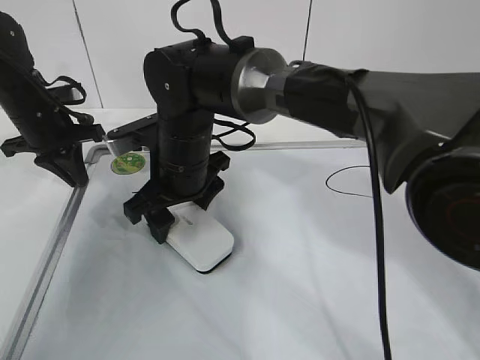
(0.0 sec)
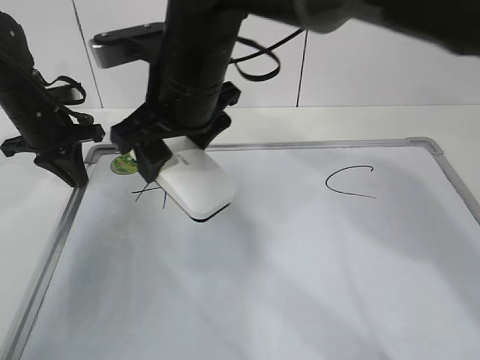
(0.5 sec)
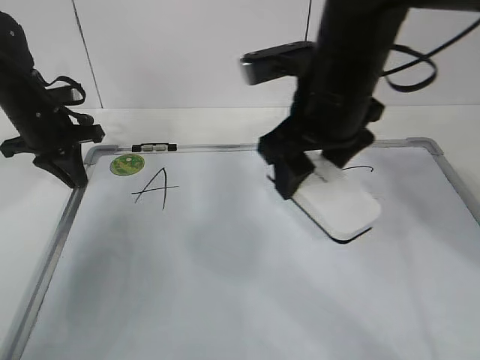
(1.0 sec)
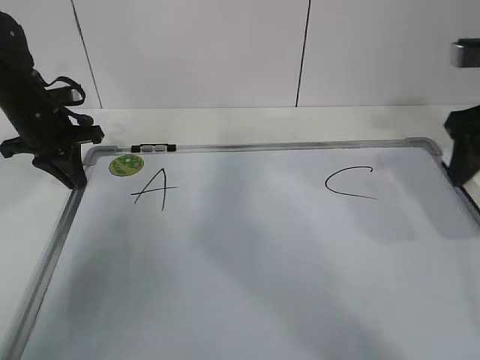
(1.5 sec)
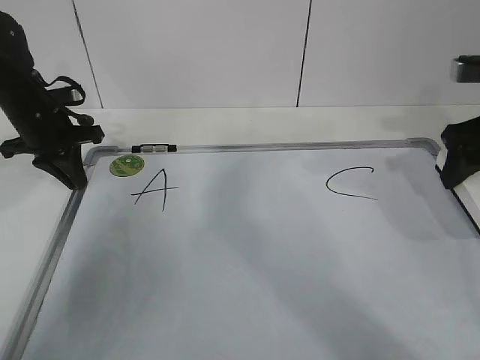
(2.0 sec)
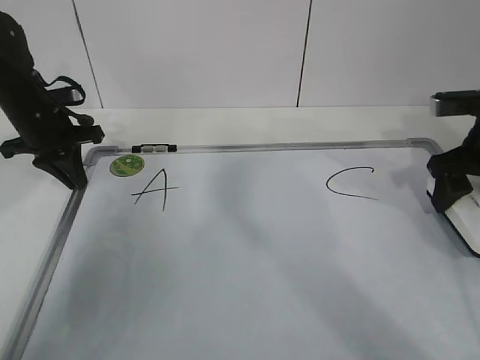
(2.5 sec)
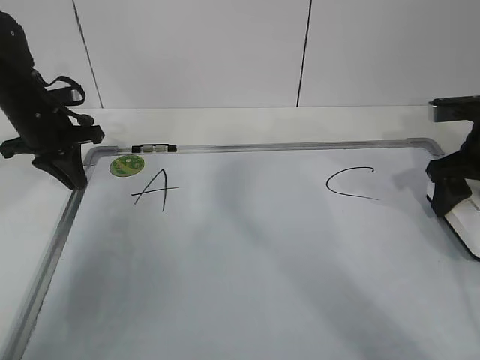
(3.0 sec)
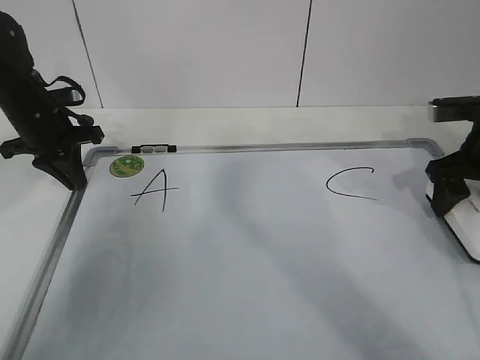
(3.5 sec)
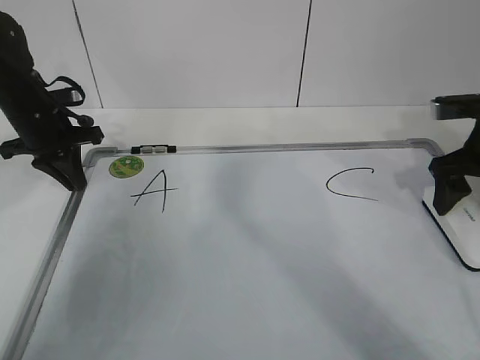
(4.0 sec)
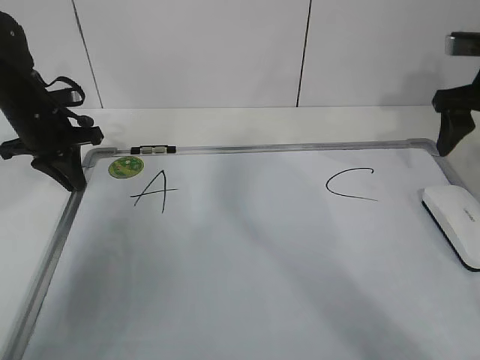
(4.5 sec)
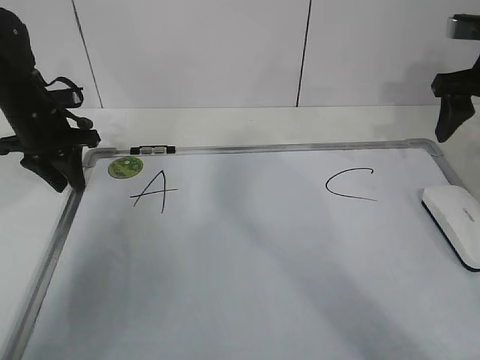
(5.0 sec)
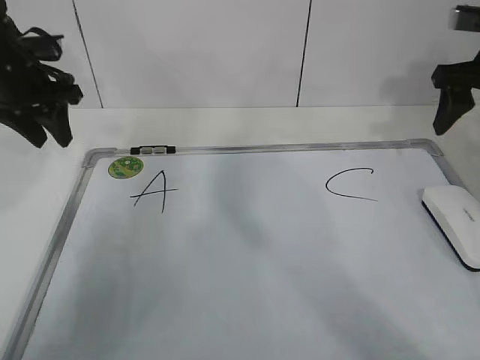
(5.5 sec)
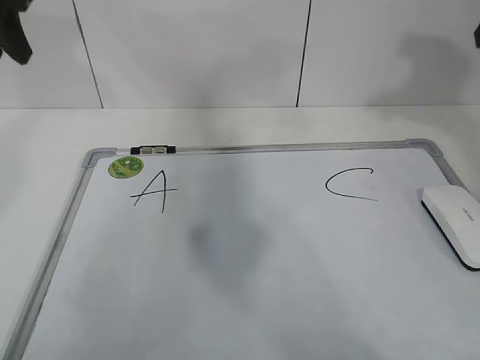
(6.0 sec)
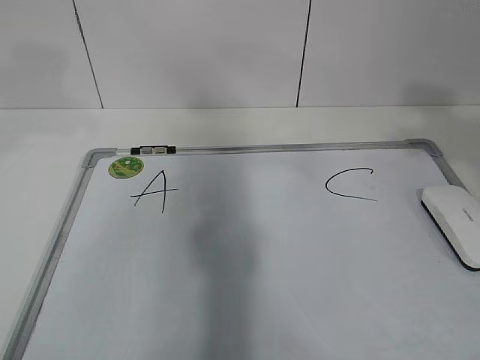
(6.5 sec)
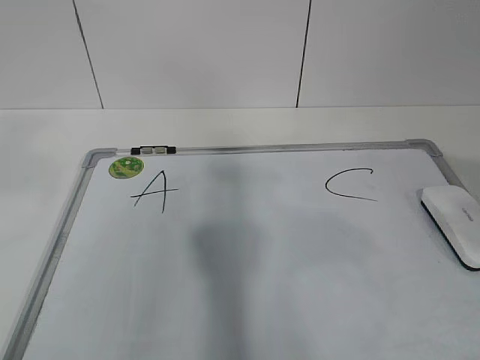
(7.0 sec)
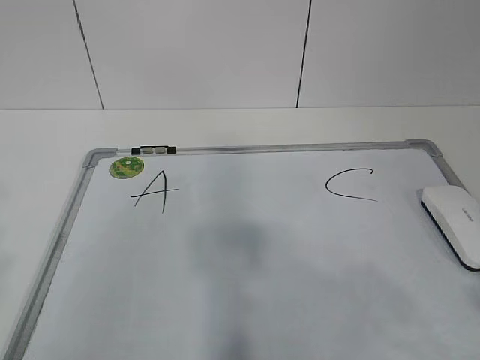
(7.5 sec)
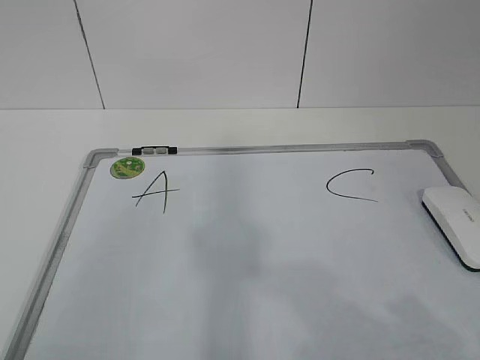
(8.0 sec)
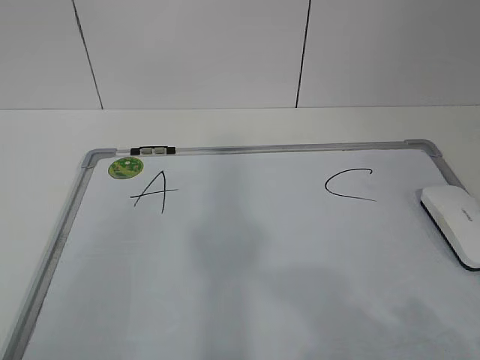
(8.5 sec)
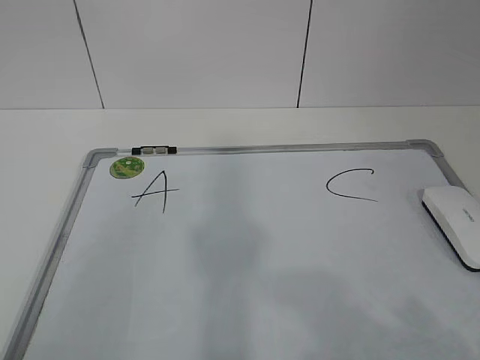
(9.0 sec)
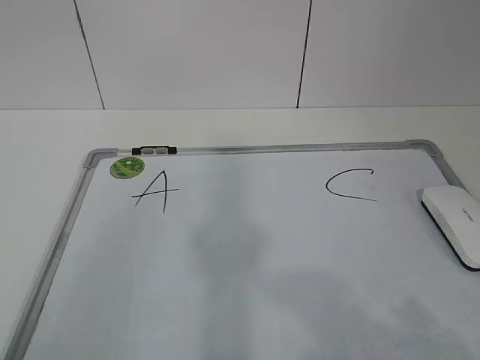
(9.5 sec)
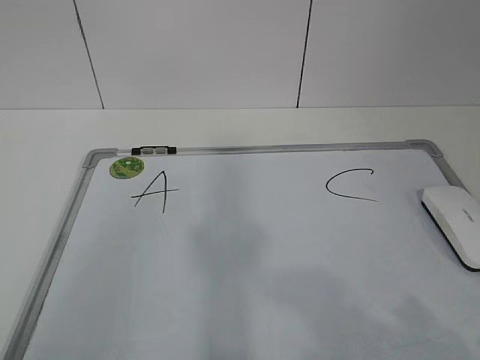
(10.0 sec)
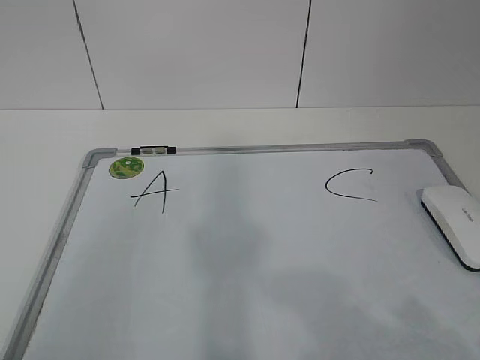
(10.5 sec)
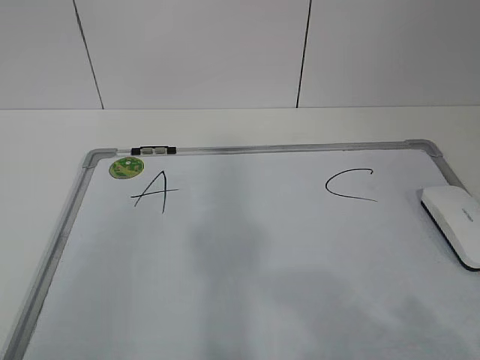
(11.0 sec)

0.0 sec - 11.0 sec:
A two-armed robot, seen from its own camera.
Task of the whole recording: pick up the eraser on the blackboard and erase the letter "B".
0.0 sec - 2.0 sec: The right gripper shifts some 35 cm to the right.
2.0 sec - 3.5 sec: The right gripper heads downward, covering approximately 5 cm.
3.5 sec - 5.5 sec: Both grippers travel together upward, about 10 cm. The left gripper opens up, while the right gripper opens, then closes again.
5.5 sec - 7.5 sec: The two grippers go some 40 cm backward.
7.5 sec - 9.0 sec: The right gripper is displaced downward by roughly 5 cm.
